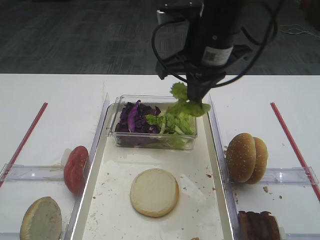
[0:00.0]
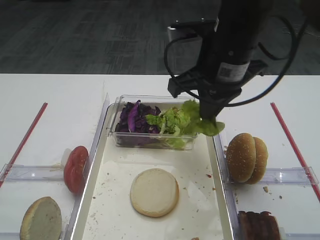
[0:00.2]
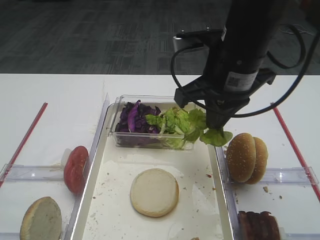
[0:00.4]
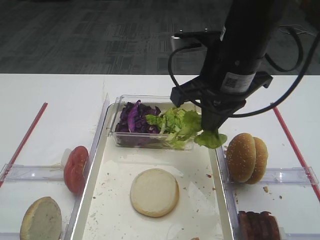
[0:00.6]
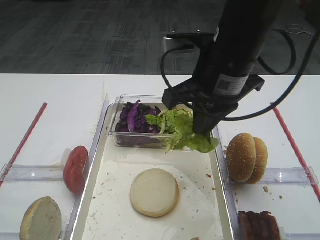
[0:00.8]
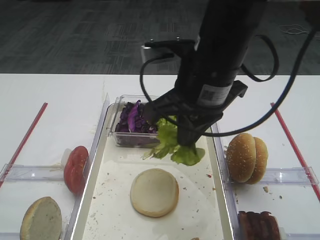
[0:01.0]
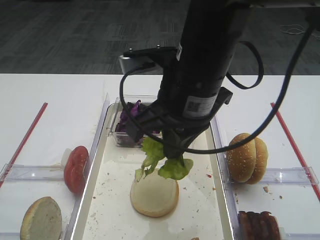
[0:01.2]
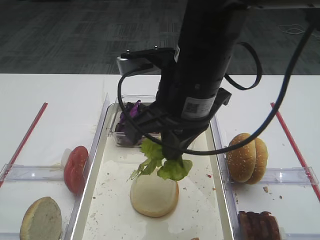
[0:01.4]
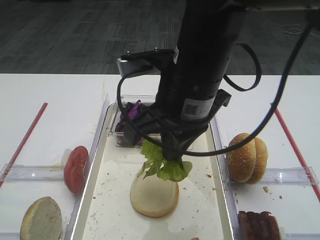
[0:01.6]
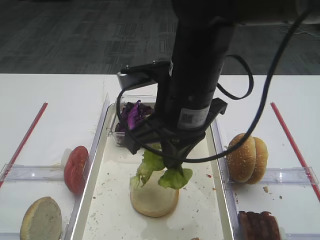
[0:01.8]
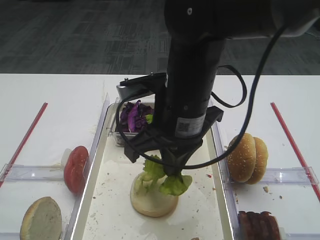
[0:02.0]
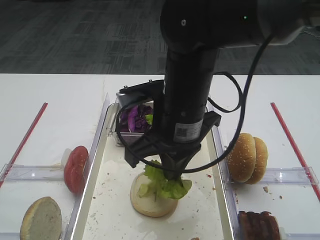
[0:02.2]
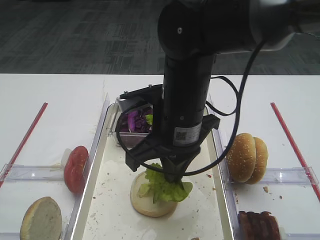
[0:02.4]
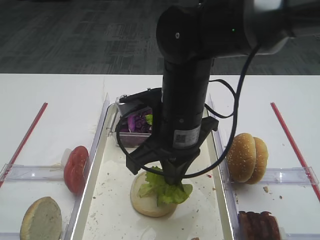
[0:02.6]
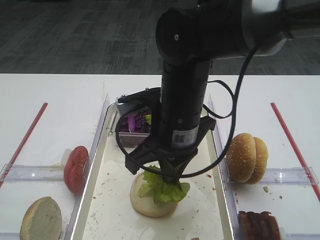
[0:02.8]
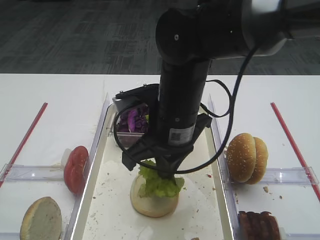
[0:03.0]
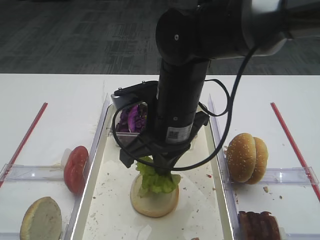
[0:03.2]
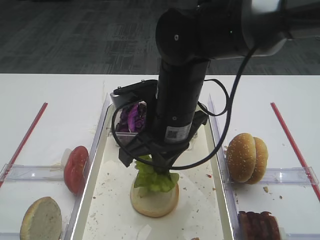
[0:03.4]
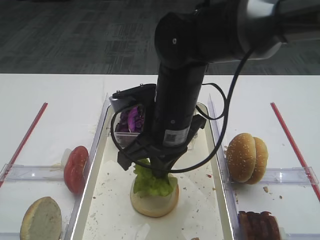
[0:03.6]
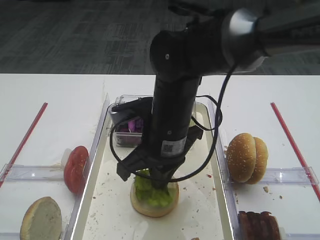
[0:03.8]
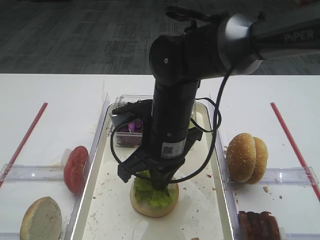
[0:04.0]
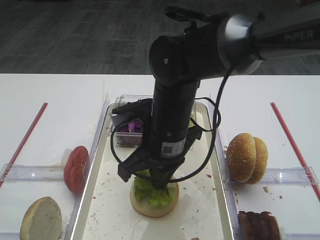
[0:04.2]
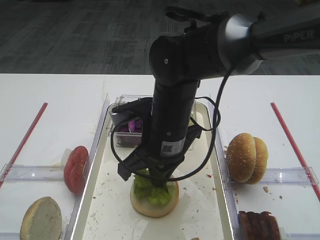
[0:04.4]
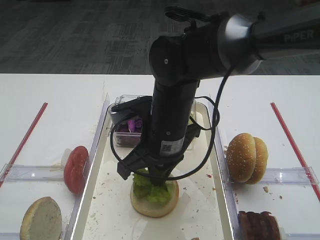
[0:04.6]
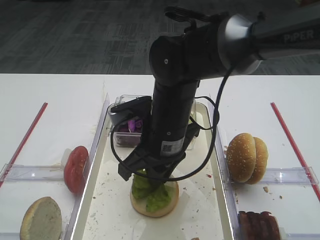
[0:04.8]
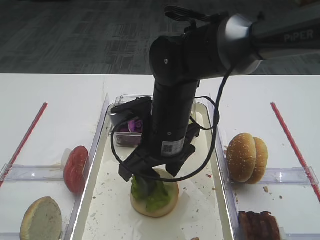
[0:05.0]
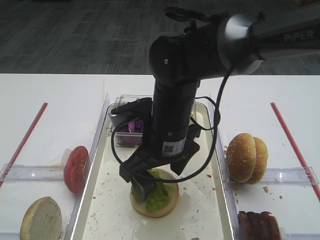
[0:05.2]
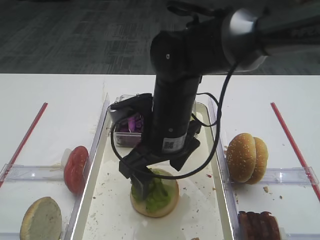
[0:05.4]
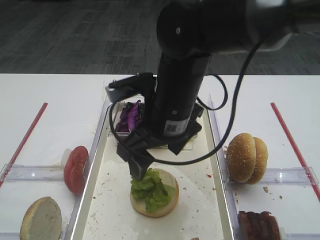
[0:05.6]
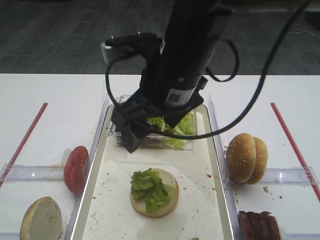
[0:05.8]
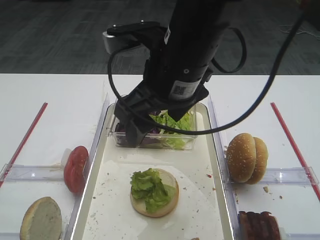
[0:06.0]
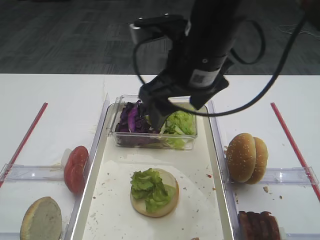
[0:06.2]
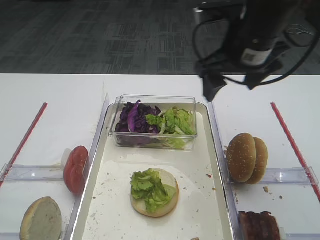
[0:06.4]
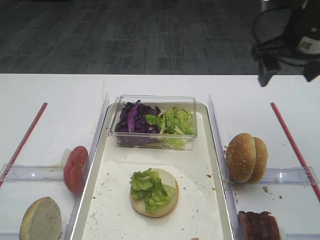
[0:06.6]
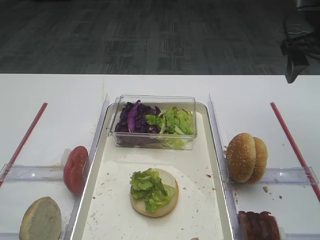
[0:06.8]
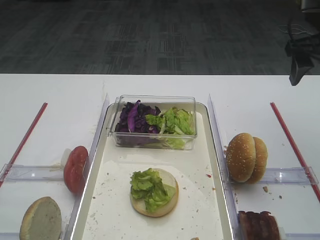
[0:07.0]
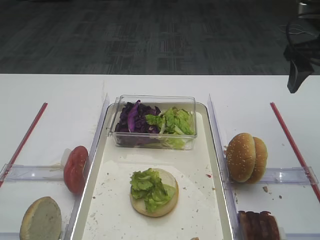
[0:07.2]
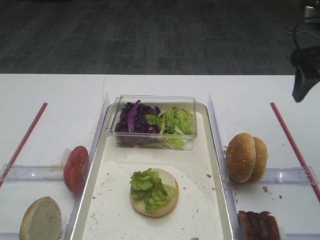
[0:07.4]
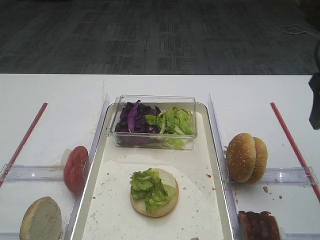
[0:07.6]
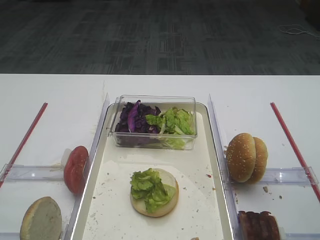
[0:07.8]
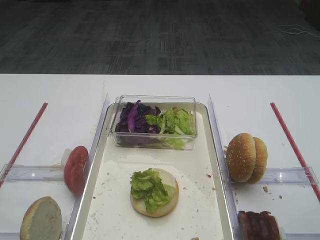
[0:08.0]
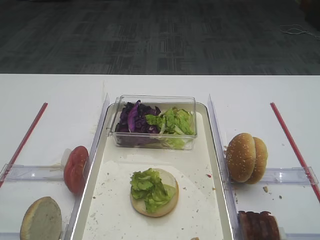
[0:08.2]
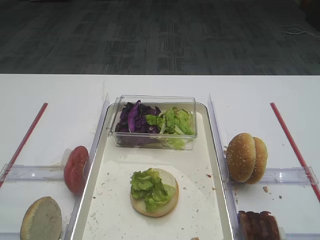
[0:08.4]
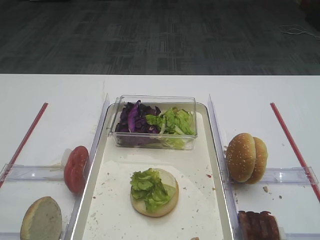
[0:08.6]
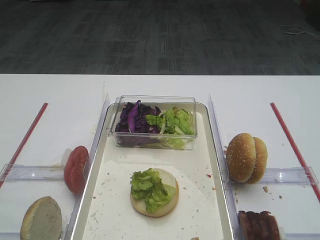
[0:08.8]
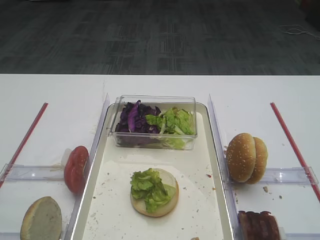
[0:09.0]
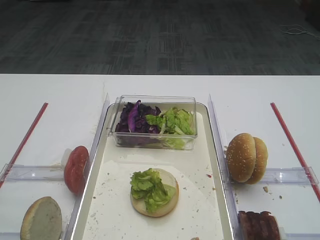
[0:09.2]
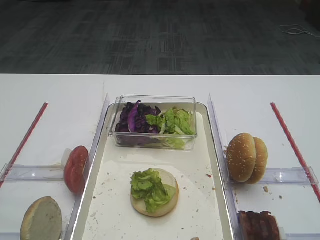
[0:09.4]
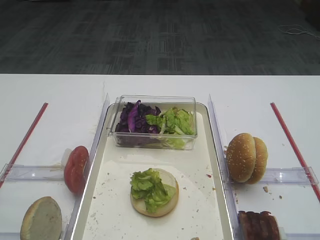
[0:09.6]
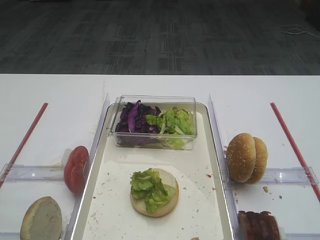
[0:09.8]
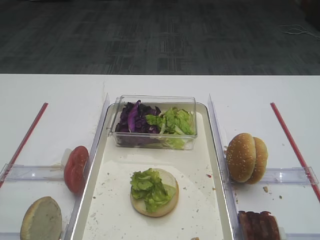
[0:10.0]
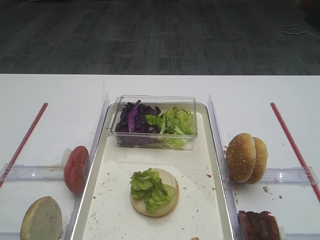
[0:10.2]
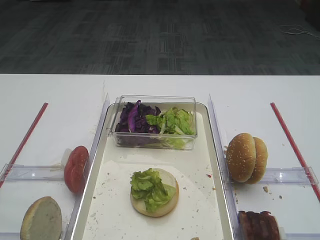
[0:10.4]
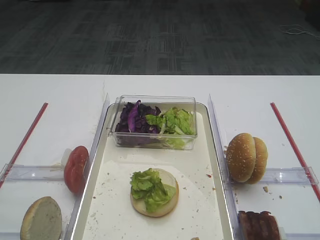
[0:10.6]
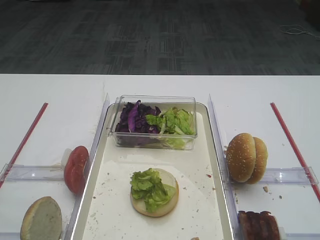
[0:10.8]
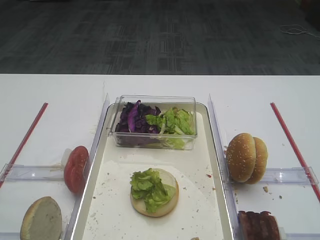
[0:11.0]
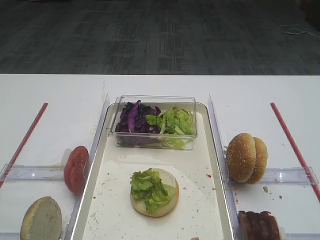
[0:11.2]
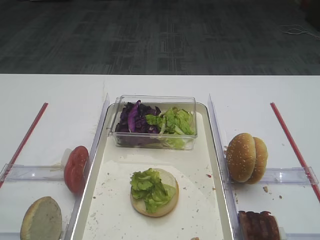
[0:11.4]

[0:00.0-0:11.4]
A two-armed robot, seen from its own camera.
Step, 0:00.0 to 0:05.6: Place the lettuce leaf on the bread slice with the right gripper.
0:00.0 to 0:01.4: The right gripper shifts about 10 cm backward.
0:01.4 to 0:02.8: The right gripper heads downward, covering roughly 5 cm.
0:02.8 to 0:04.2: The grippers make only small movements.
0:04.2 to 0:05.6: The right gripper is displaced upward by roughly 5 cm, and opens its fingers.
0:05.6 to 0:07.2: The right gripper shifts about 25 cm to the right.
0:07.2 to 0:08.6: The right gripper is displaced backward by approximately 35 cm.
0:10.0 to 0:11.4: Both grippers stay put.
